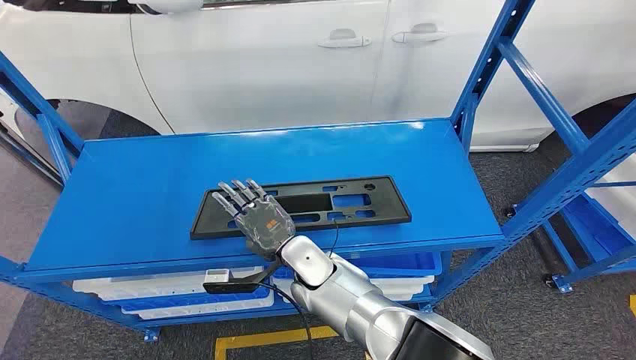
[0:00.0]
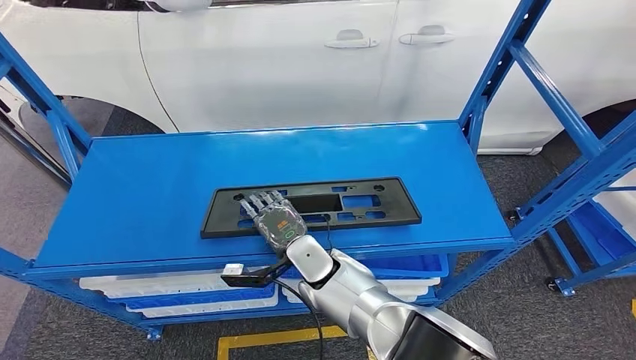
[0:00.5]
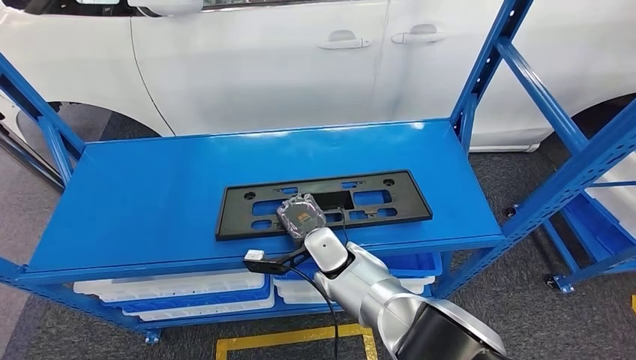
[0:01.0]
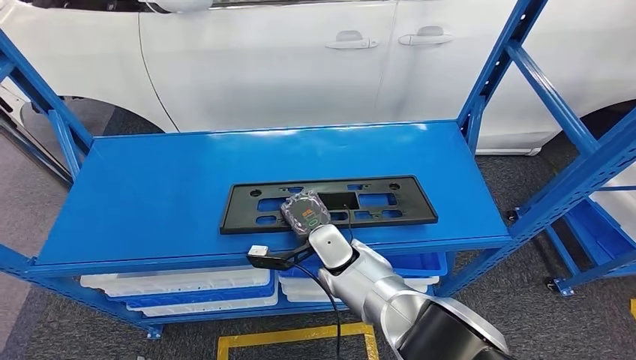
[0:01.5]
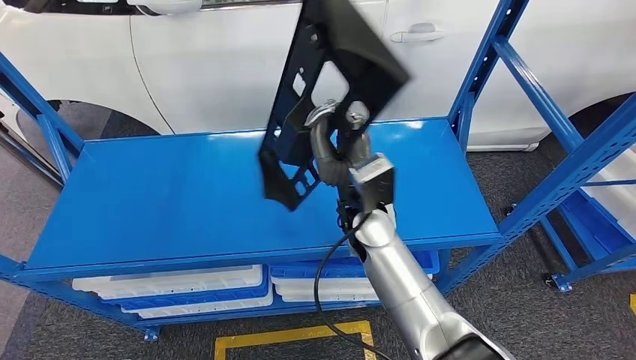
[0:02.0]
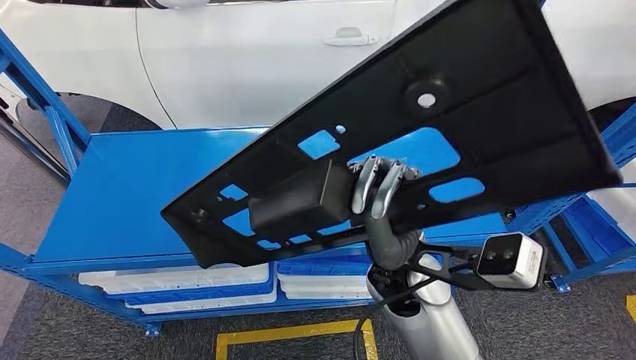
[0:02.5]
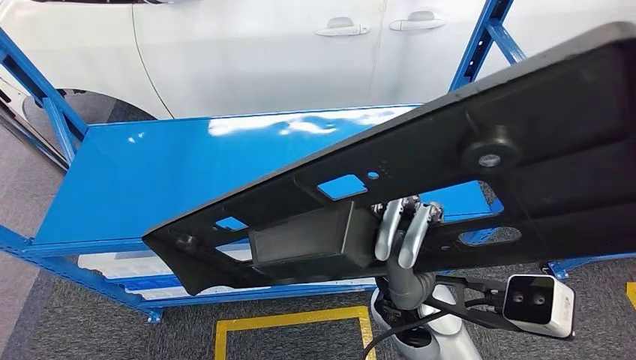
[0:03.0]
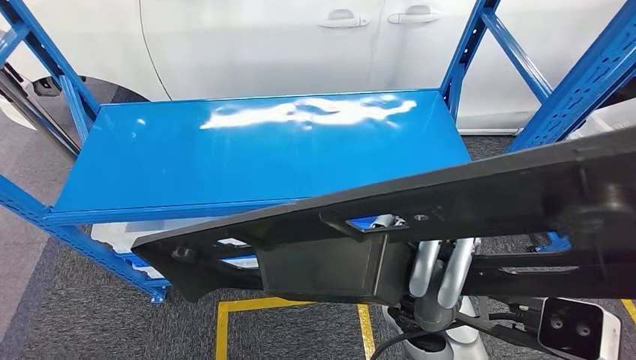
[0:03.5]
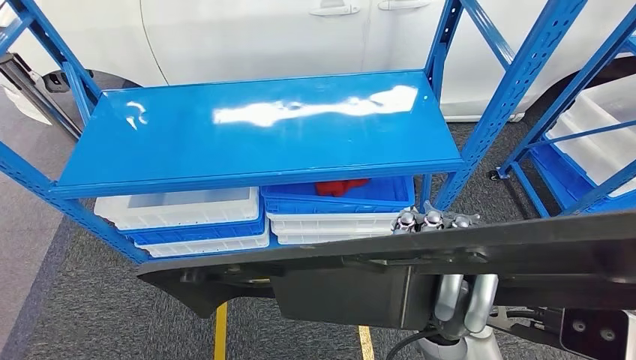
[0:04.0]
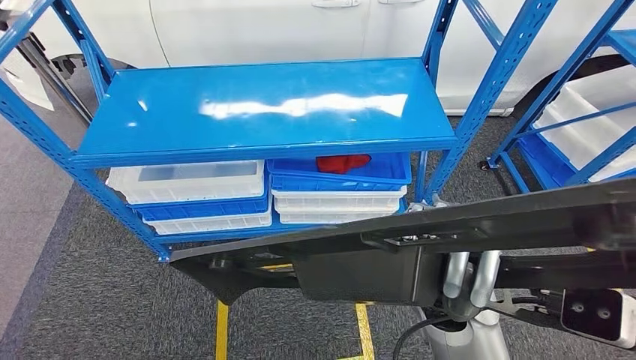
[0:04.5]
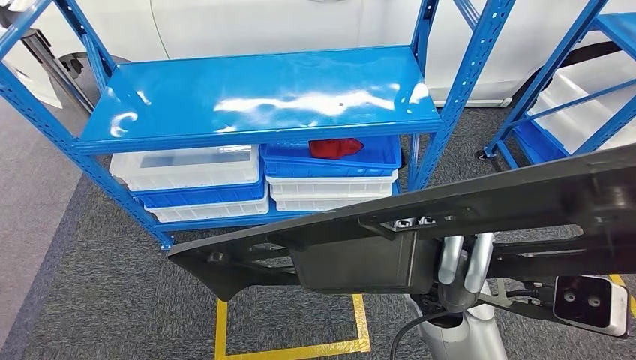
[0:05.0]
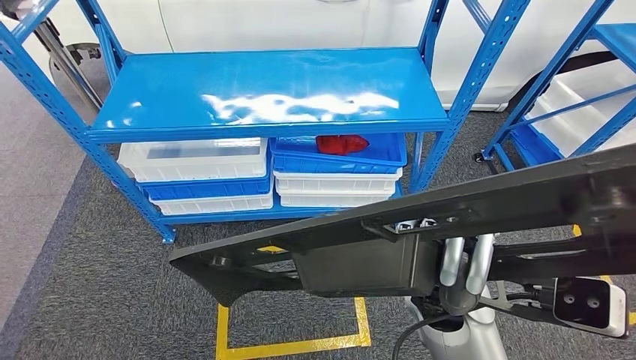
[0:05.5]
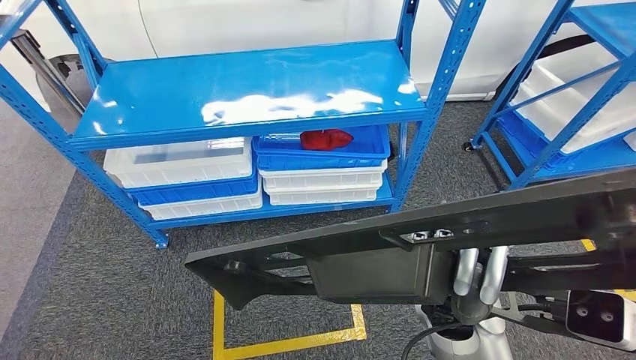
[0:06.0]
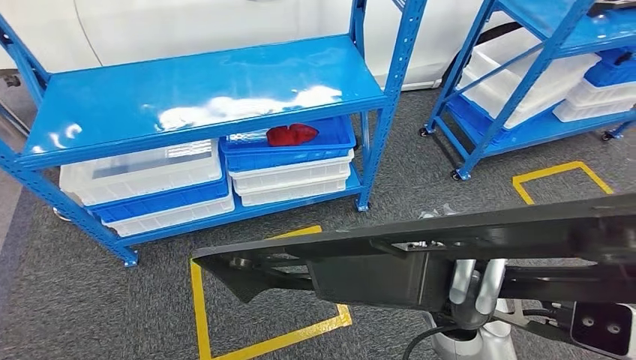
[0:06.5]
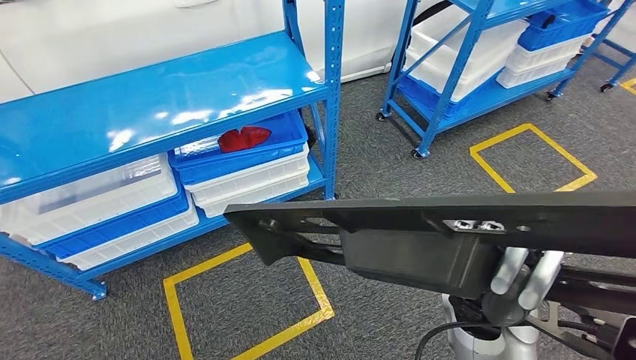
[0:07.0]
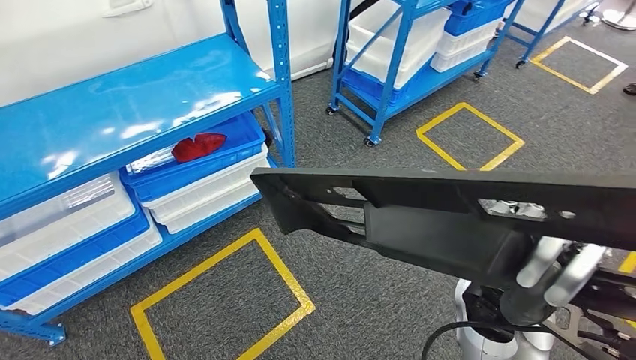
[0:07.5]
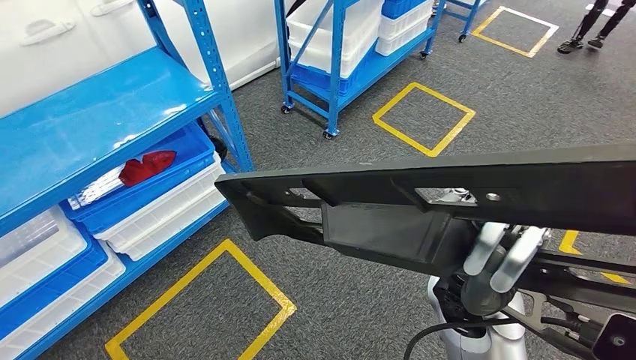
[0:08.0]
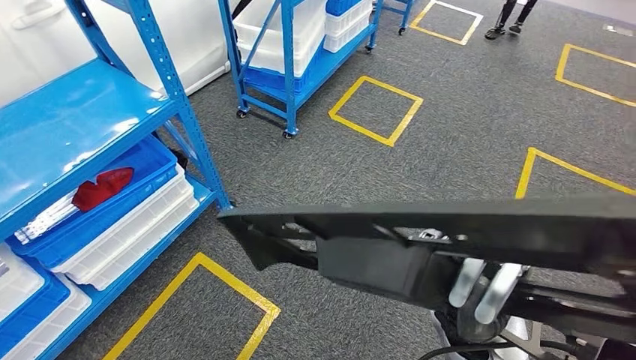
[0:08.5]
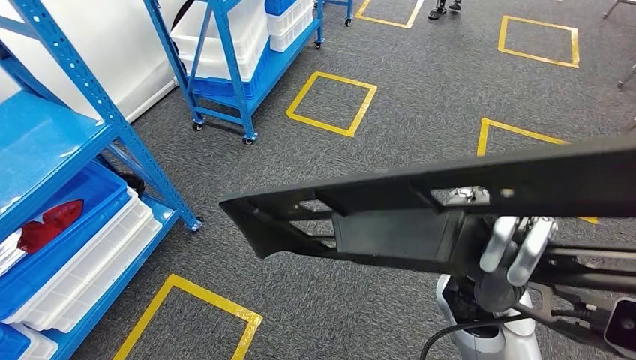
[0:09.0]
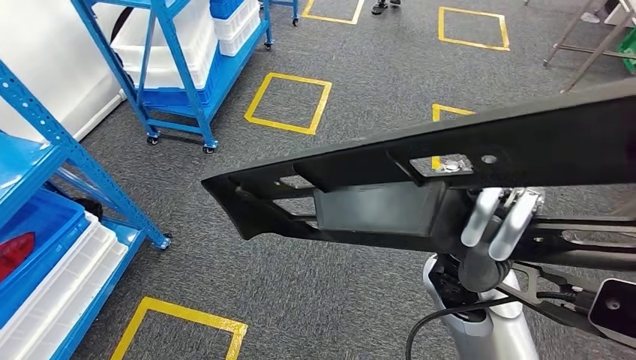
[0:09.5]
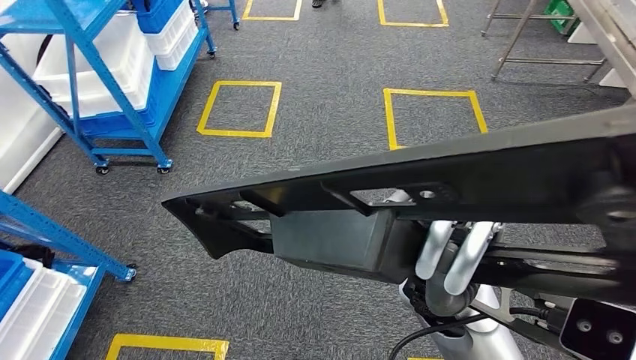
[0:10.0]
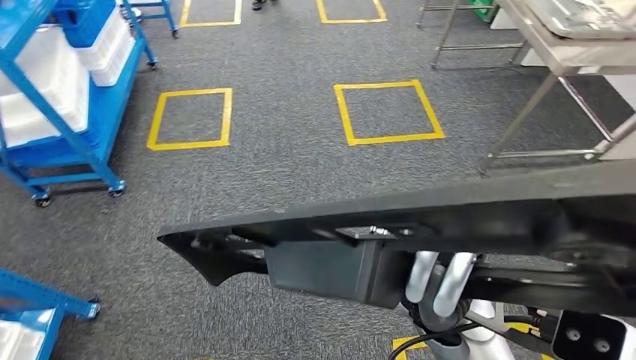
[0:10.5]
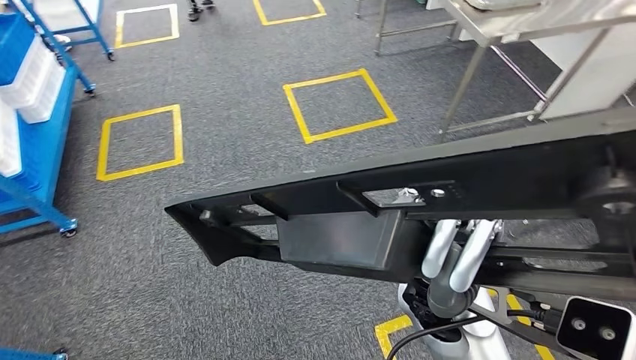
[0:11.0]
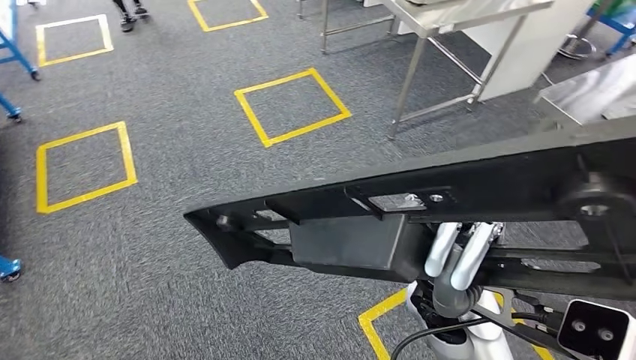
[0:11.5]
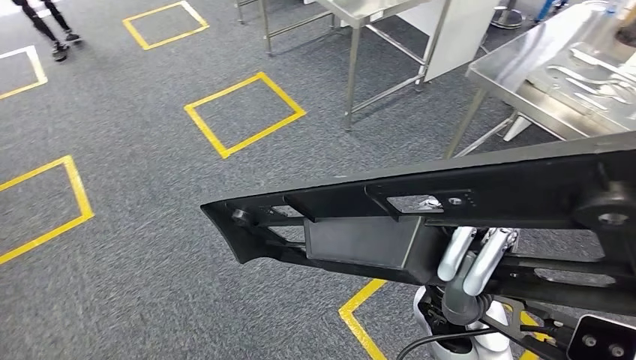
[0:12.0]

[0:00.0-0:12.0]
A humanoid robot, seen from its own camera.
Step, 0:00.0 to 0:03.5: Pick up the large parts from the shelf.

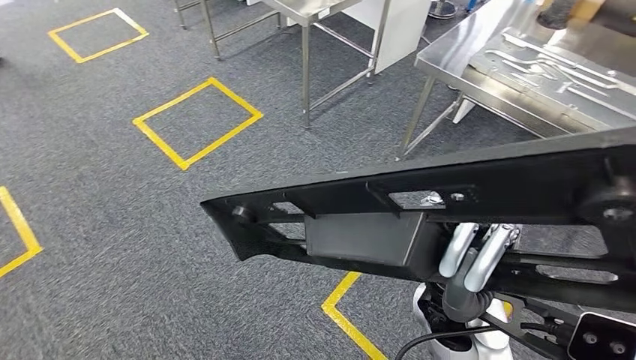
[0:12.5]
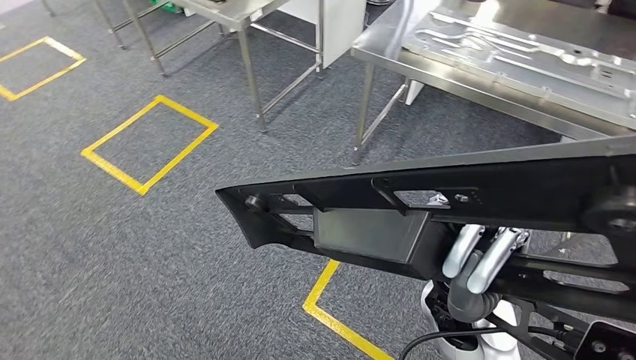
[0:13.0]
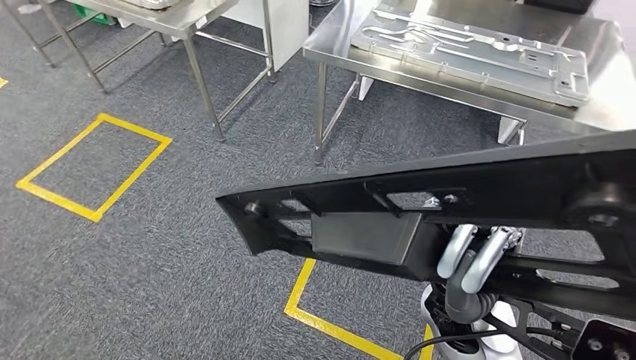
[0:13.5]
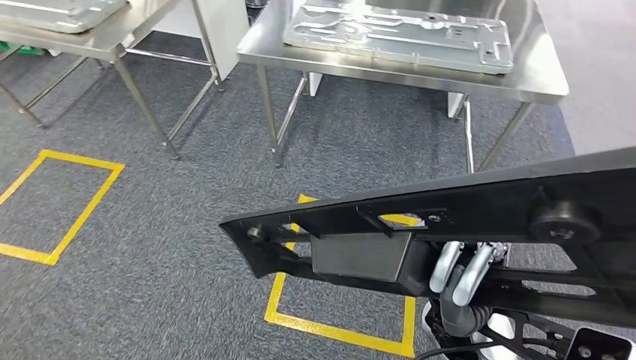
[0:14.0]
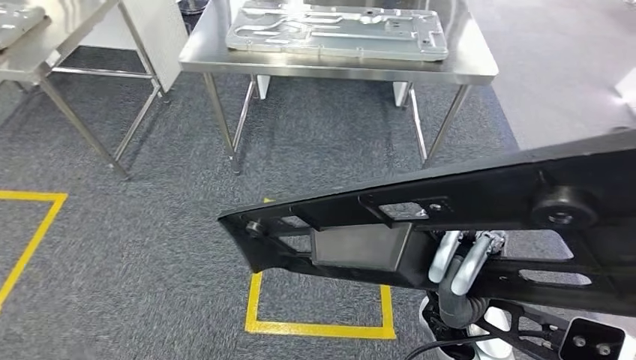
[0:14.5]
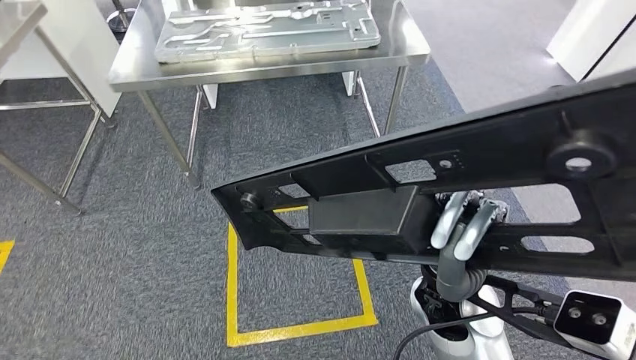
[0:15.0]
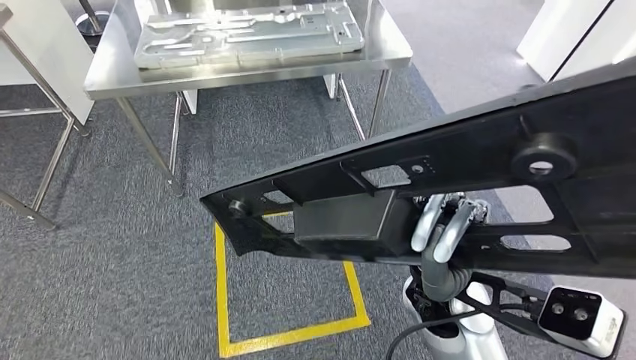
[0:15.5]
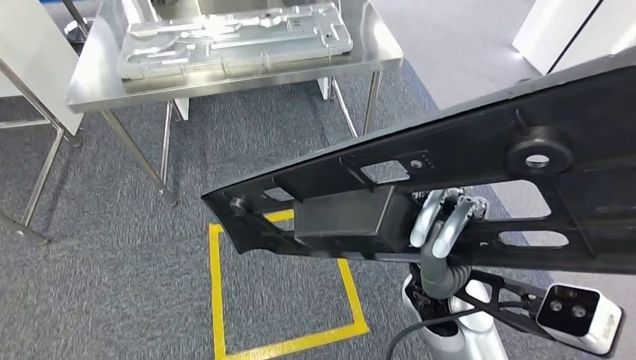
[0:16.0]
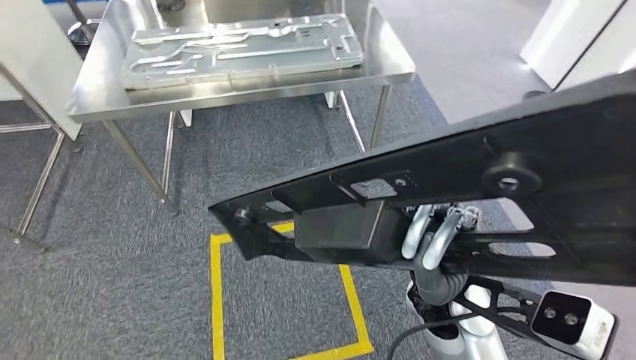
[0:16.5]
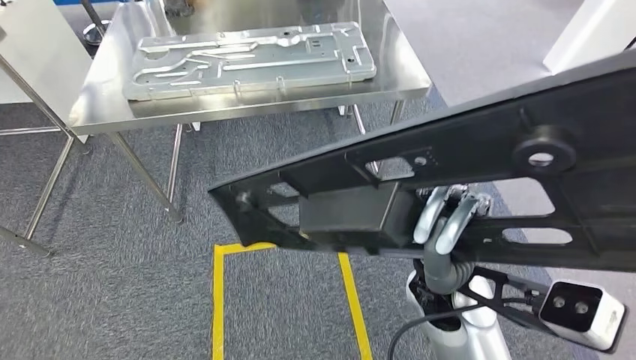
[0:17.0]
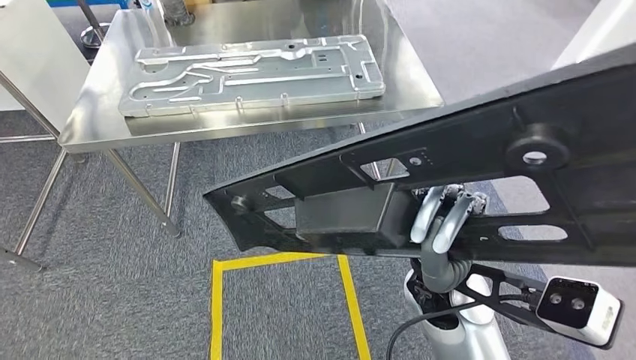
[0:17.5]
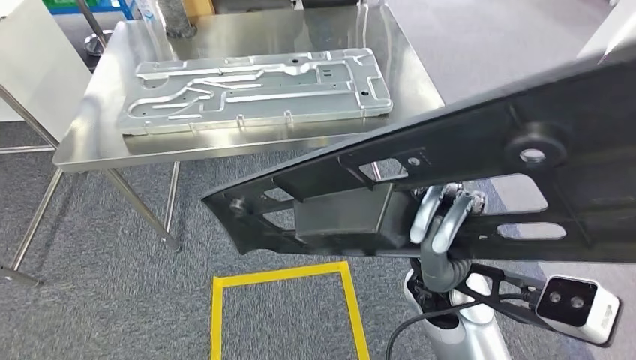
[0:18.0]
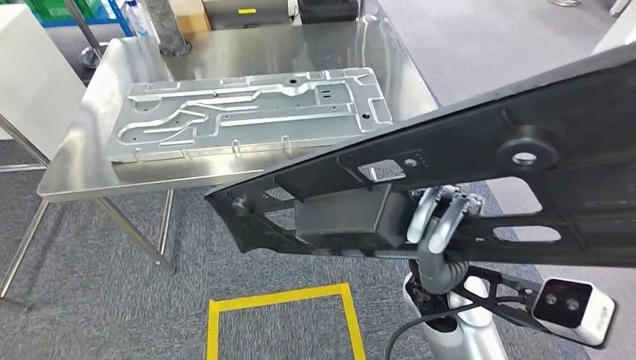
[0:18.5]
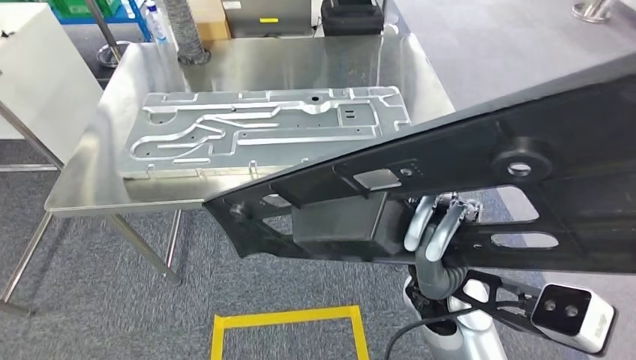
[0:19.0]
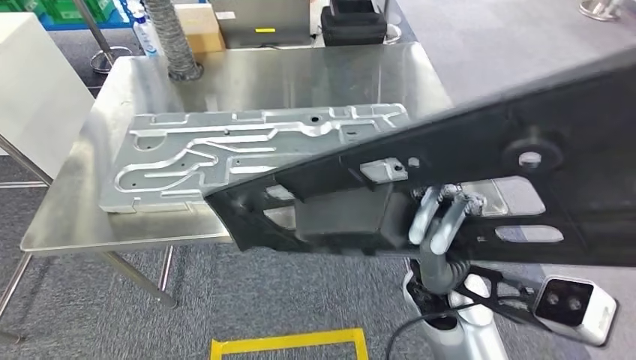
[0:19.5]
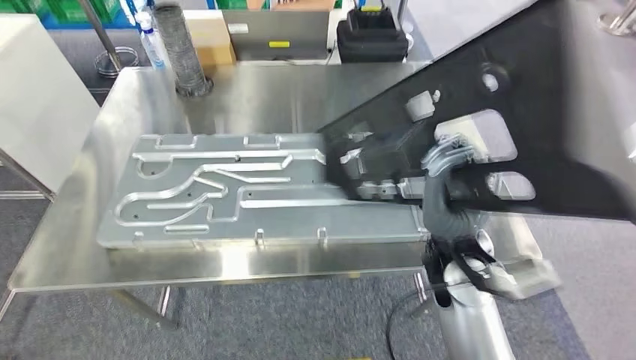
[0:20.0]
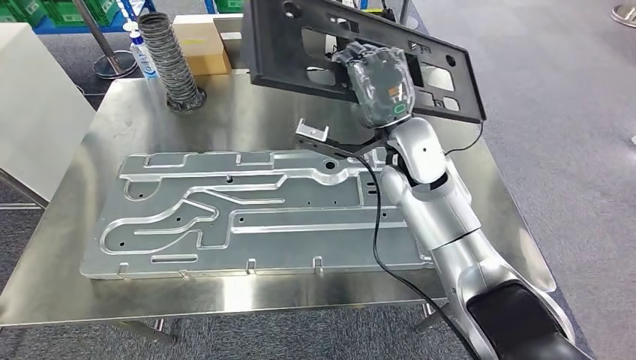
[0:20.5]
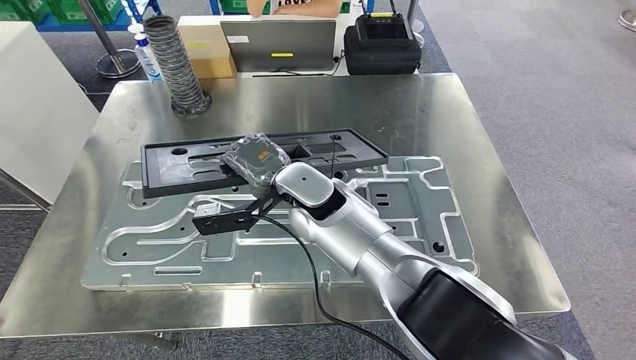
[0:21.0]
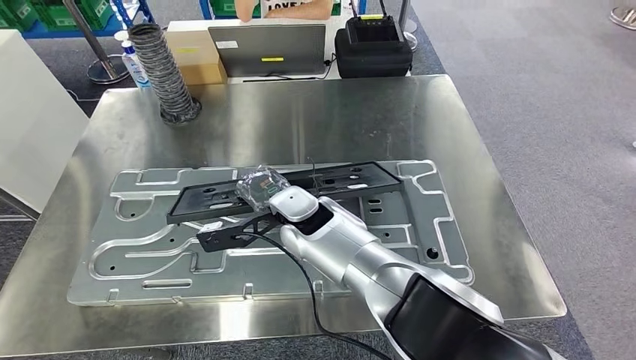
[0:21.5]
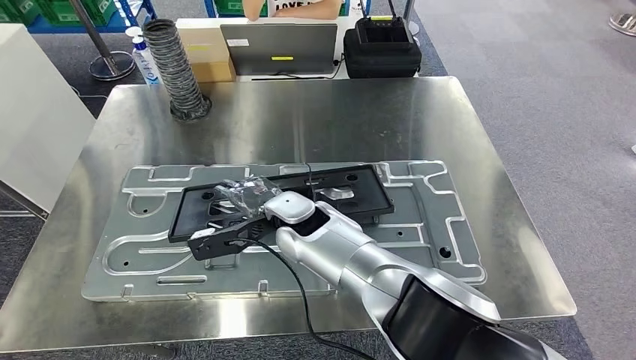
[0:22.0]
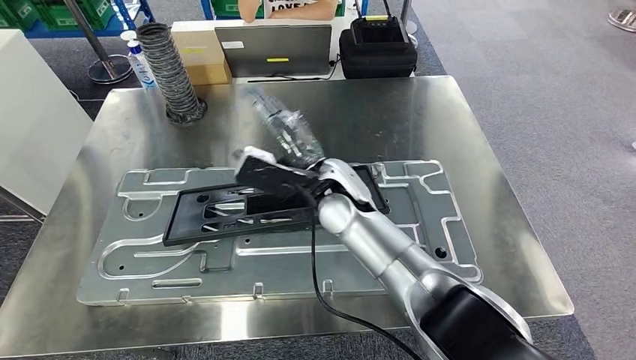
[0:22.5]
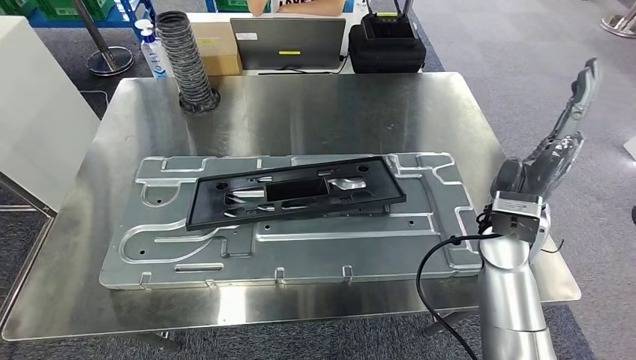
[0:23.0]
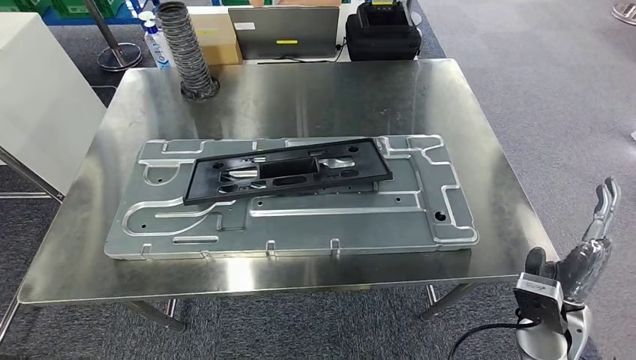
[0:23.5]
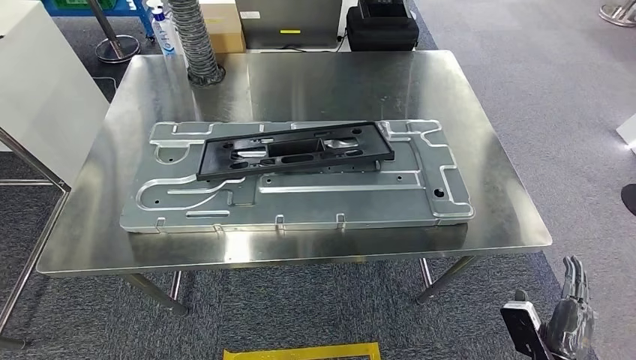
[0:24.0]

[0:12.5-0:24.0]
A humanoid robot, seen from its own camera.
Step, 0:12.5 to 0:19.0: Move the large parts to the workbench.
Step, 0:20.0 to 0:23.5: Insert the large parts into the corresponding slots on the workbench.
